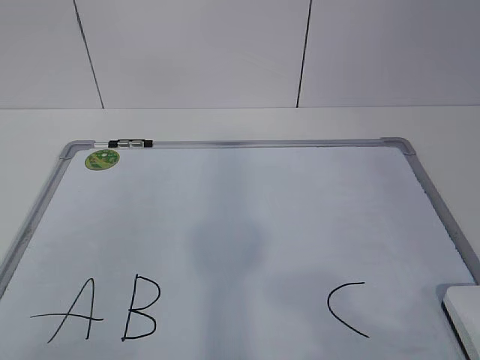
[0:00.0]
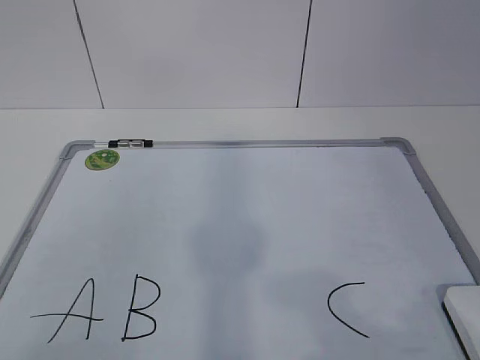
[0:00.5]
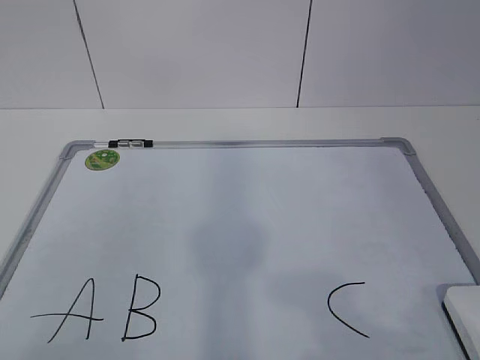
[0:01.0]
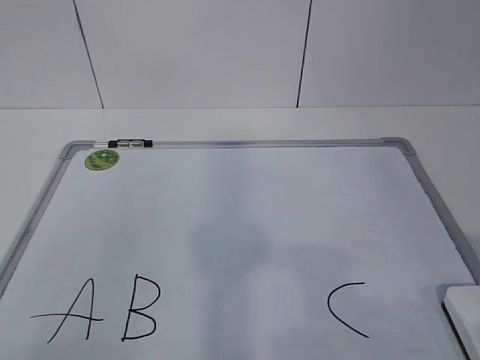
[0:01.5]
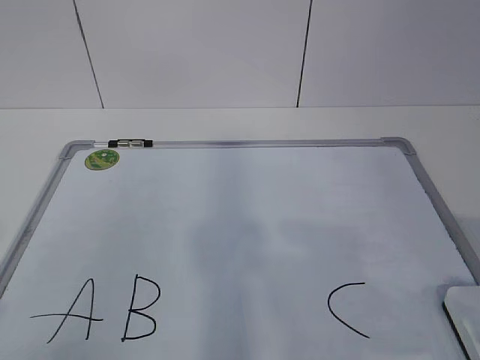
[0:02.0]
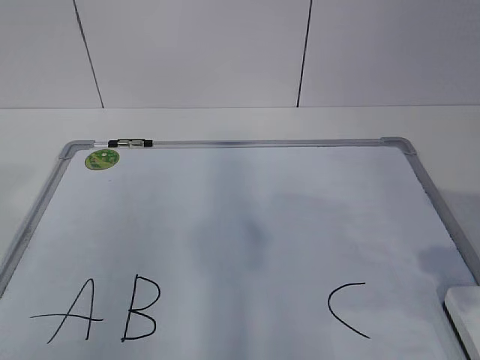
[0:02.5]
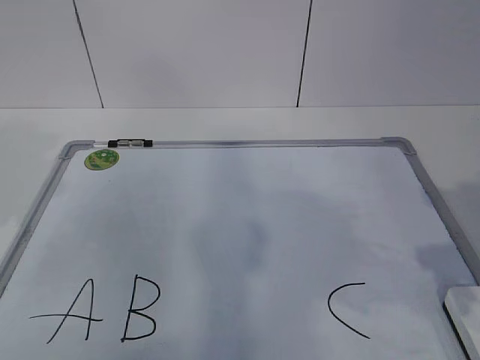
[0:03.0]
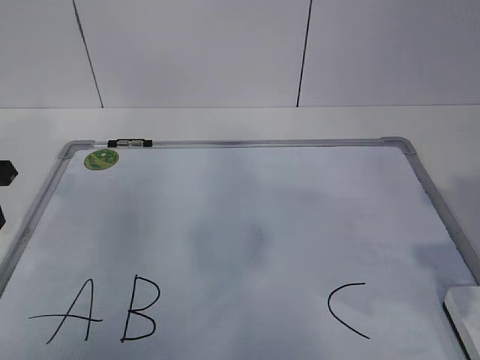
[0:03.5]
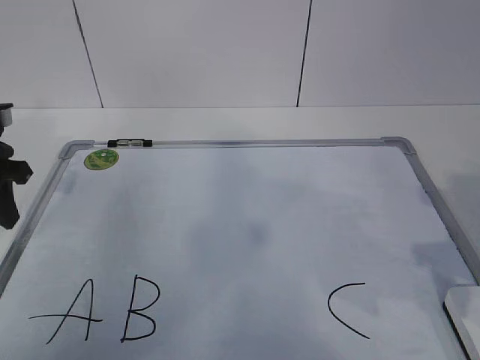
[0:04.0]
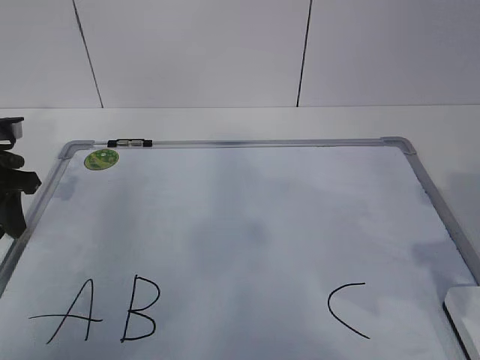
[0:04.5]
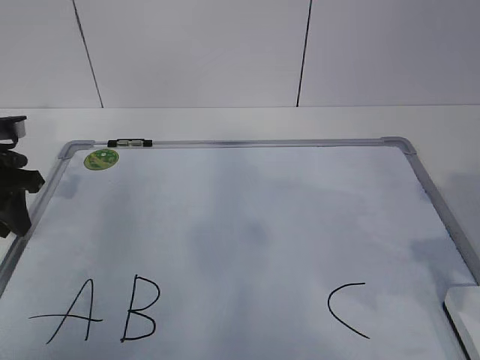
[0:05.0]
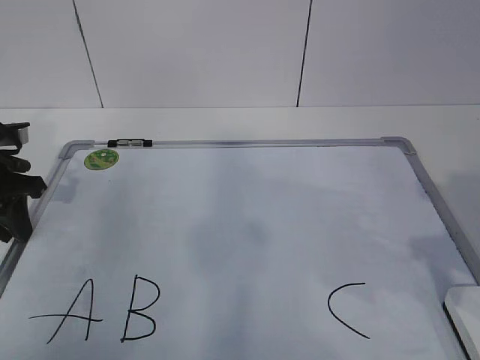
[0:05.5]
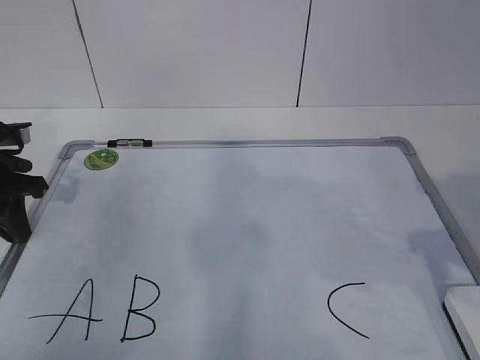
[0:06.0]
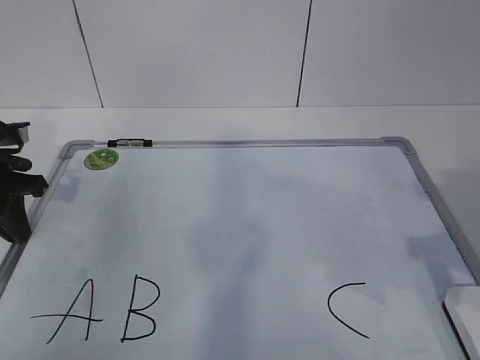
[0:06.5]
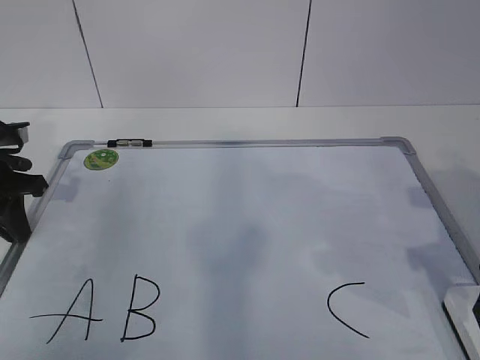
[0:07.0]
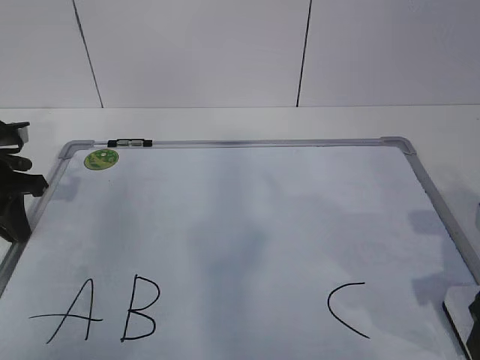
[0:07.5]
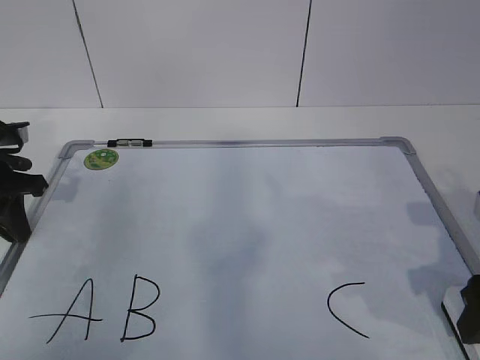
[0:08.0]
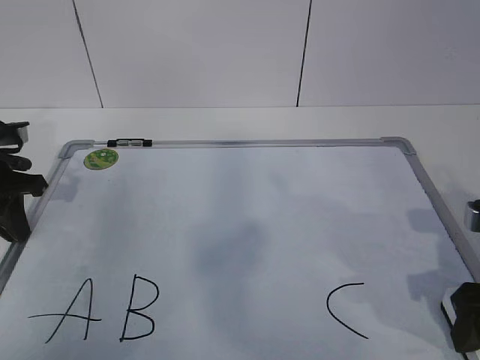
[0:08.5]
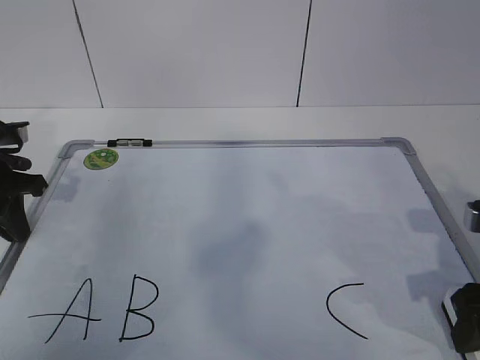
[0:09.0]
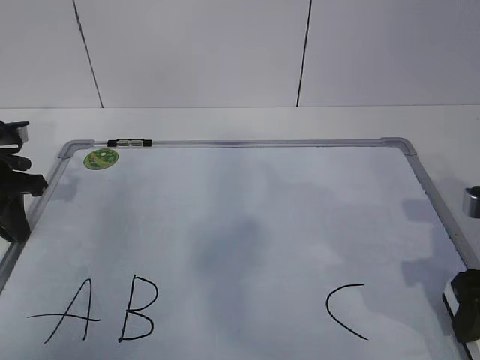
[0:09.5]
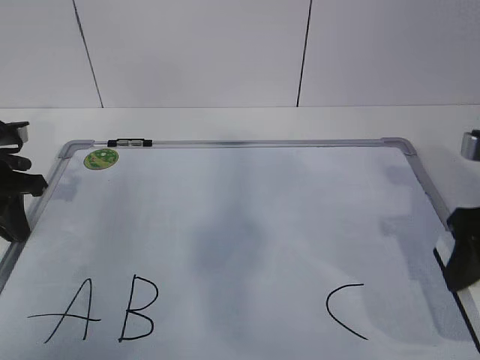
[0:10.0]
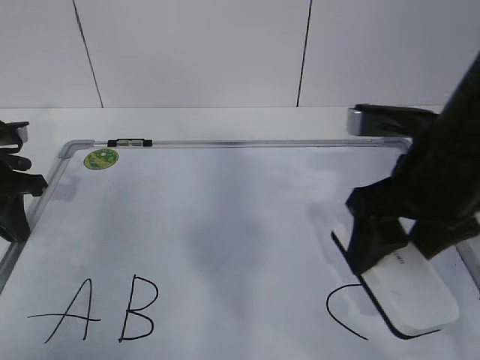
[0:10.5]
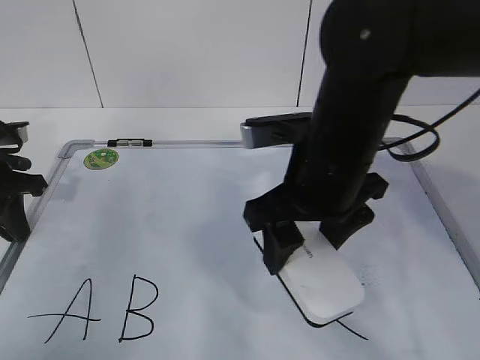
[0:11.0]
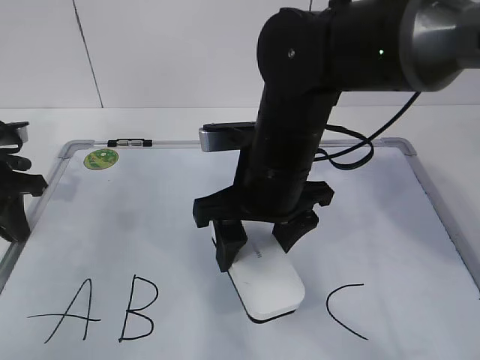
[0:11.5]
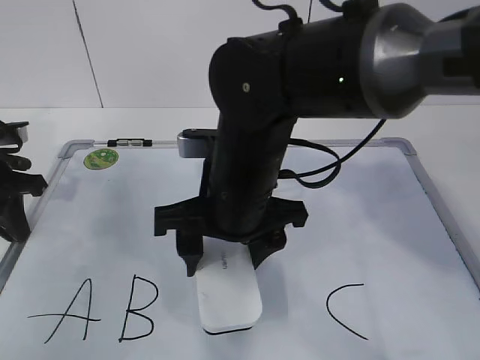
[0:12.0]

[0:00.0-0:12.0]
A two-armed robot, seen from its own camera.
Task of the whole recording: pick up the eraser on the blackboard and erase the letter "B".
Step, 0:00.0 to 0:05.0: Hold the drawing board steady with your left hand.
0:02.0 to 0:04.0: The right gripper is displaced forward by roughly 10 cm. Meanwhile the left gripper moves forward, approximately 30 cm.
0:04.0 to 0:06.0: The left gripper closes.
0:06.0 to 0:08.0: The right gripper is displaced downward by approximately 5 cm.
0:08.0 to 0:10.0: The right gripper is displaced upward by some 5 cm, and closes.
0:10.0 to 0:12.0: The right gripper moves to the left, some 25 cm.

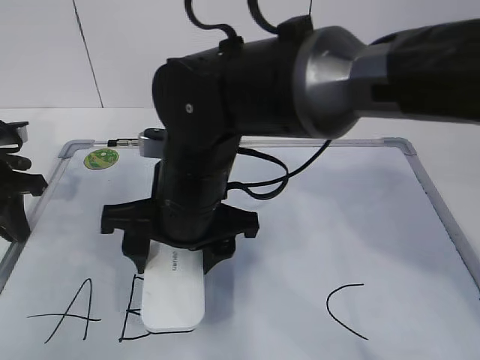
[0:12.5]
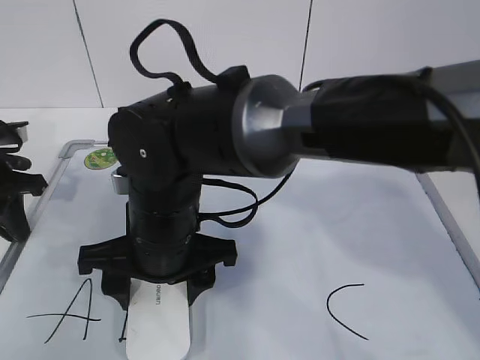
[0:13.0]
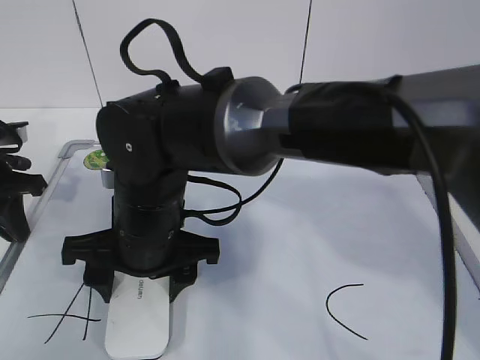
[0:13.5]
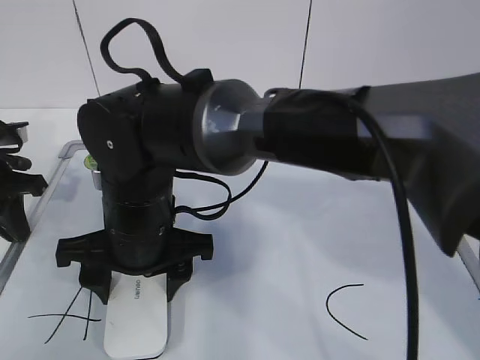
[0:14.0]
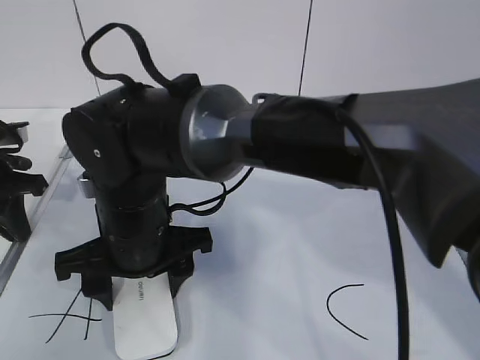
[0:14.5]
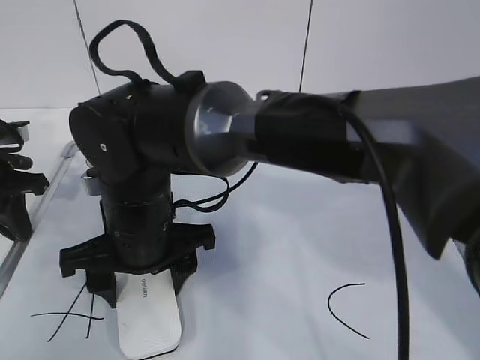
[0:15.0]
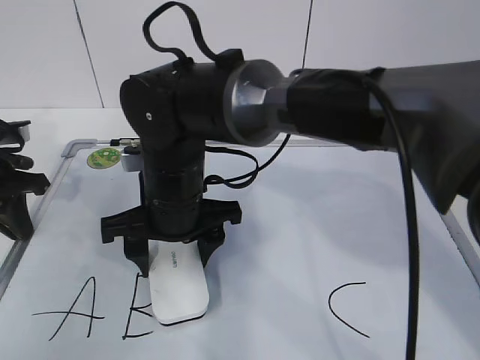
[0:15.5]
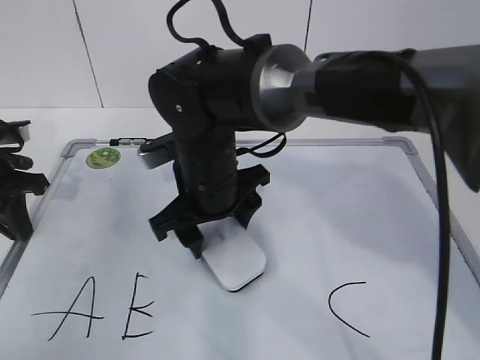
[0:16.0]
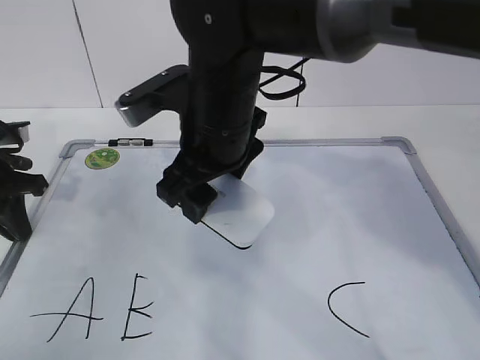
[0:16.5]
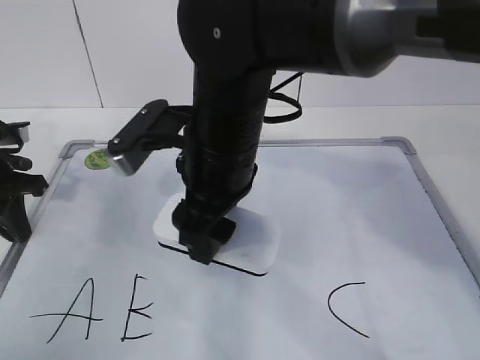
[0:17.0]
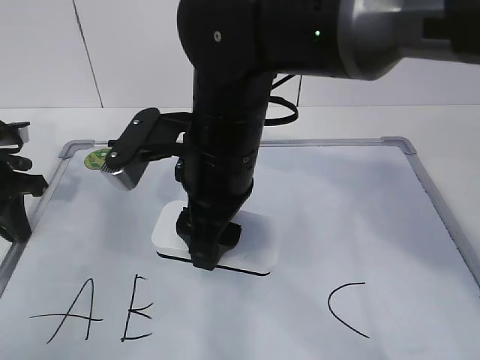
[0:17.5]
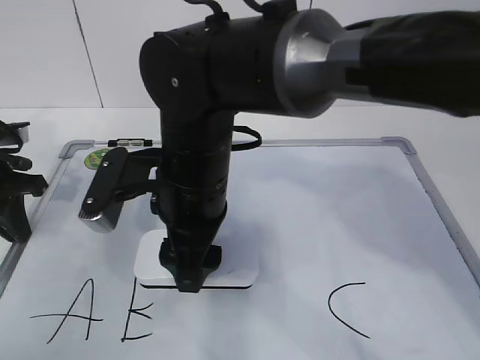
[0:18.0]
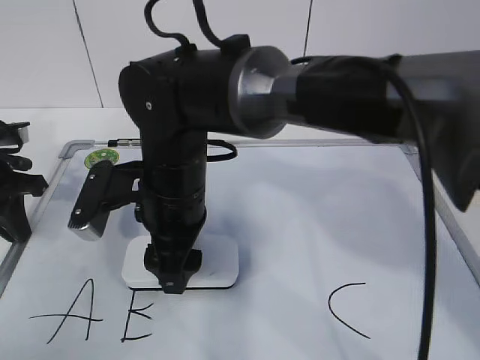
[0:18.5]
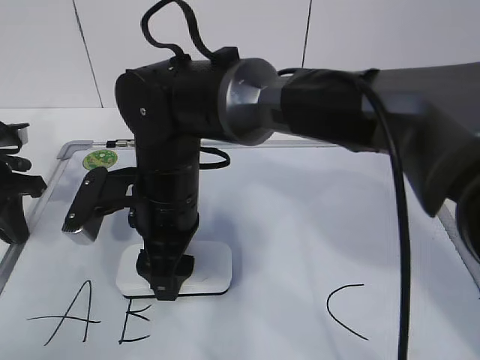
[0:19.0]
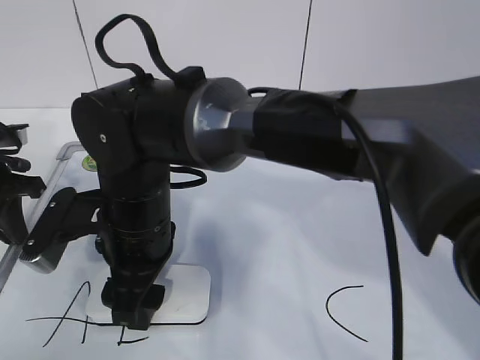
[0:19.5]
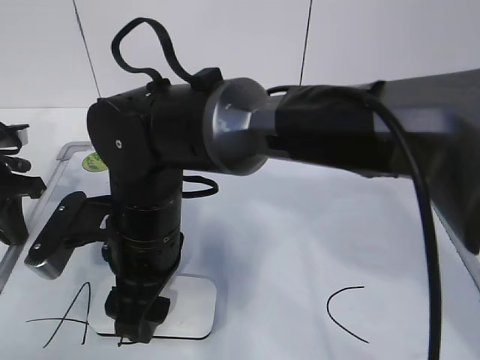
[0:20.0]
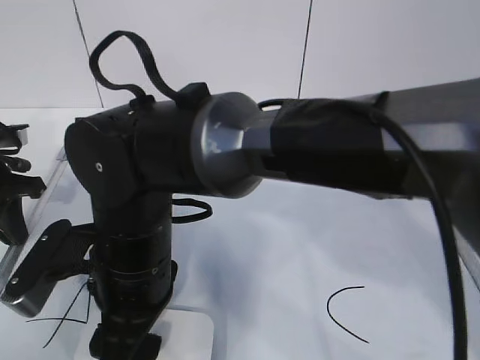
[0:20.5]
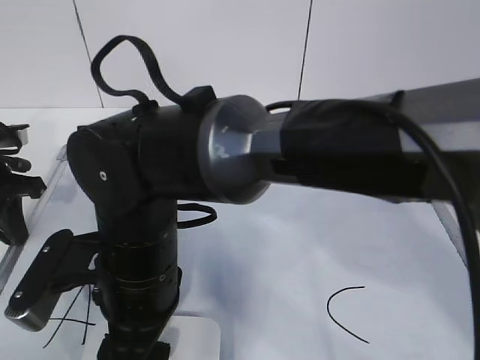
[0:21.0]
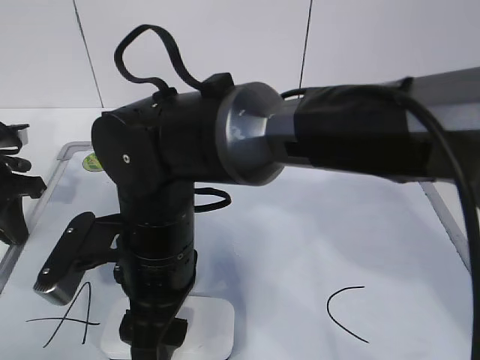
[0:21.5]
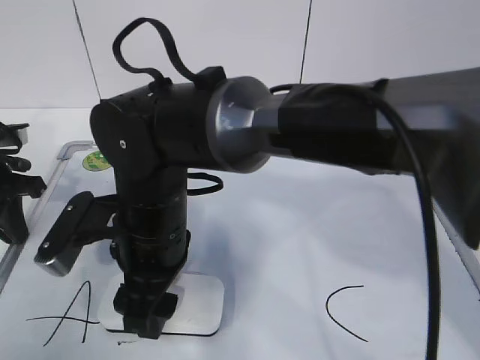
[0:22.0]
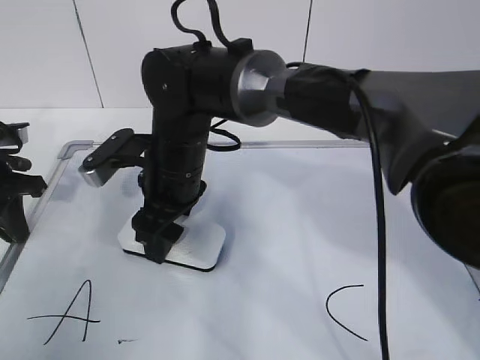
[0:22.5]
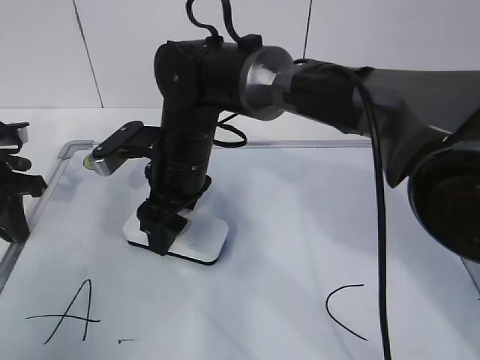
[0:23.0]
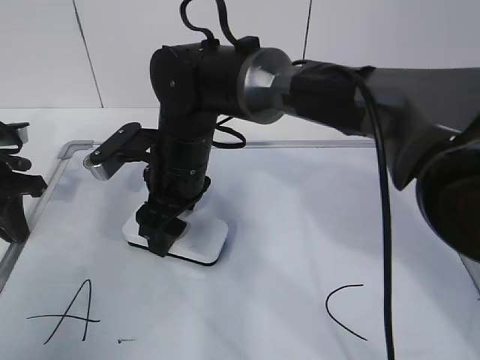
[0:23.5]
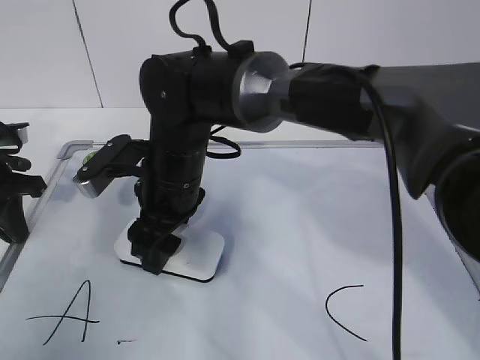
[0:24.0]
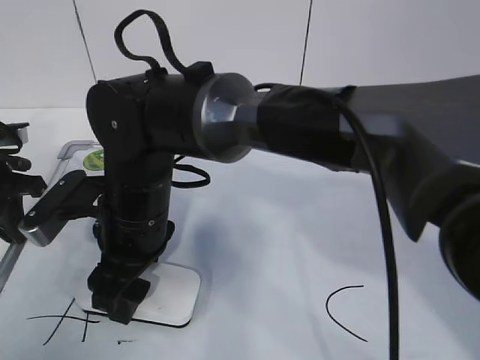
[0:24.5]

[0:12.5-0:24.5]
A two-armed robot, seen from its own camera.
Task of the whole recording: pick up the eraser on the blackboard and erase the letter "B".
Step, 0:12.5 to 0:23.0: Erase the letter B with your right hand.
0:12.5 to 0:14.5: The right gripper shifts by approximately 5 cm.
0:14.5 to 0:16.5: The right gripper heads upward and to the right, covering approximately 10 cm.
0:16.5 to 0:18.5: The right gripper is displaced downward by approximately 5 cm.
0:18.5 to 0:20.5: The right gripper shifts roughly 5 cm backward.
0:20.5 to 0:22.5: The right gripper travels forward by roughly 10 cm.
0:22.5 to 0:24.5: The right gripper heads backward, covering about 5 cm.

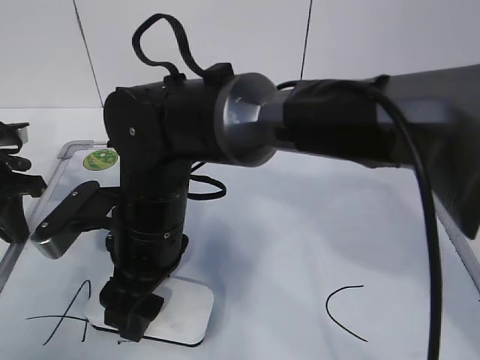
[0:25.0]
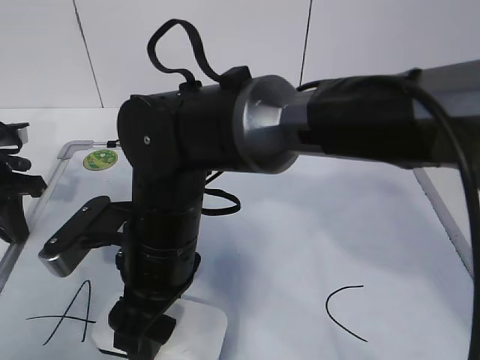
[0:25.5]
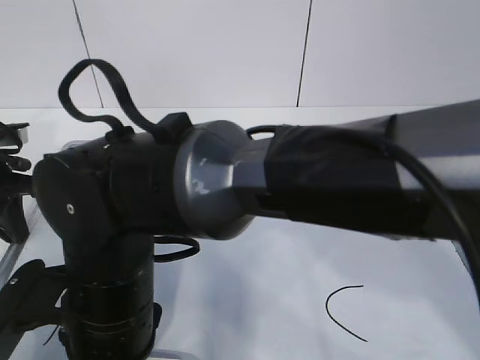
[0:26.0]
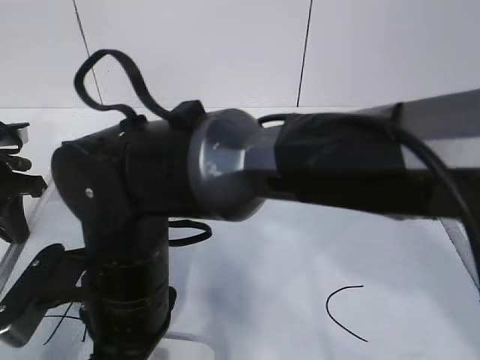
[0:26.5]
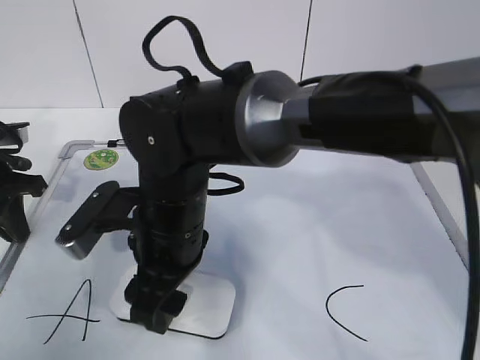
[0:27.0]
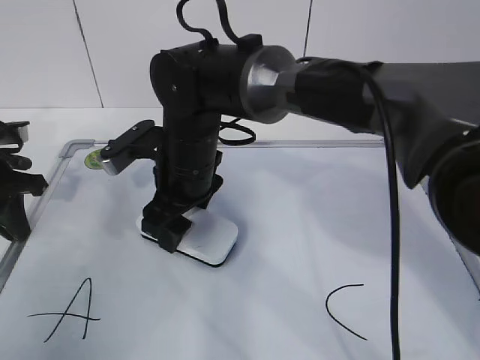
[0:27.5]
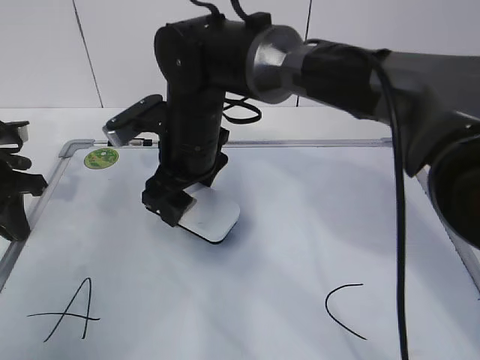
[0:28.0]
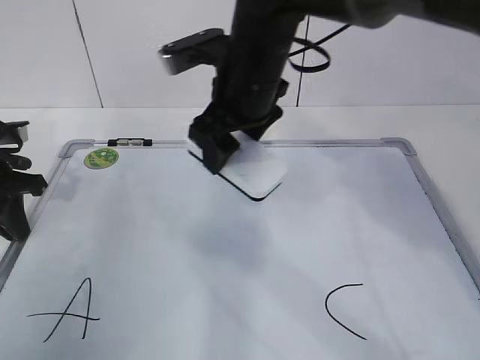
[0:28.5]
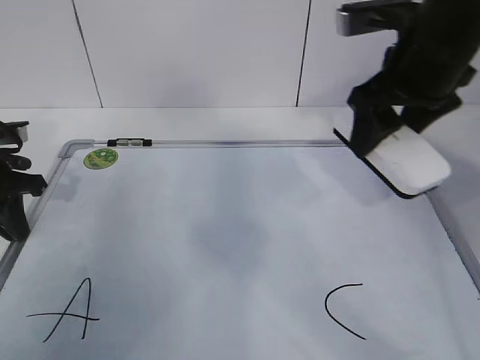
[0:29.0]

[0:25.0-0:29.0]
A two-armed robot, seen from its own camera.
Task of the whole recording: pick up the eraser on the blackboard and erase the letter "B".
0:25.0 to 0:27.0: The right gripper goes backward and returns, approximately 10 cm each way.
0:27.0 to 0:29.0: The right gripper travels to the right and upward by approximately 25 cm.
